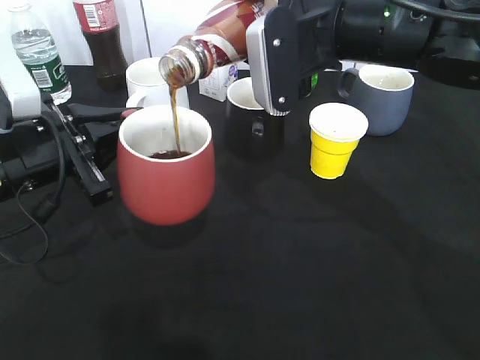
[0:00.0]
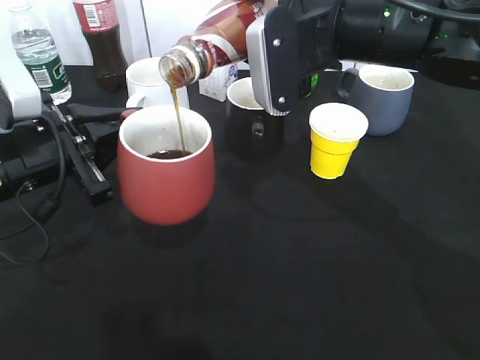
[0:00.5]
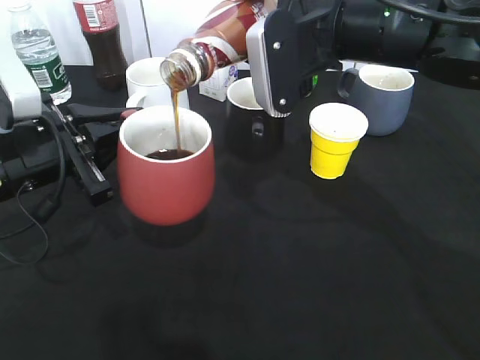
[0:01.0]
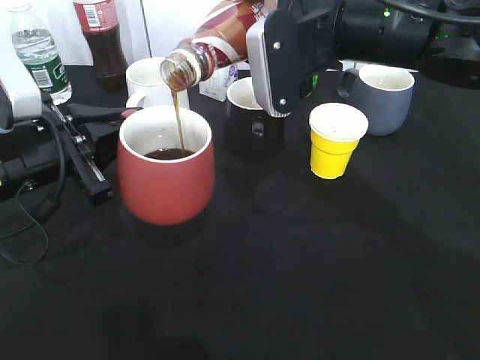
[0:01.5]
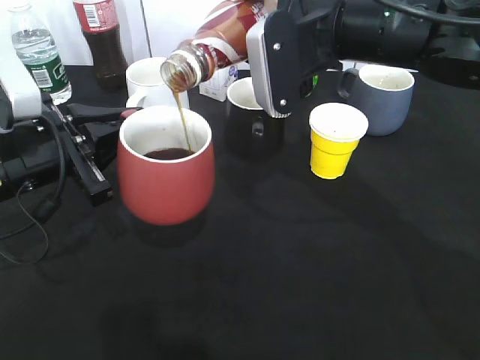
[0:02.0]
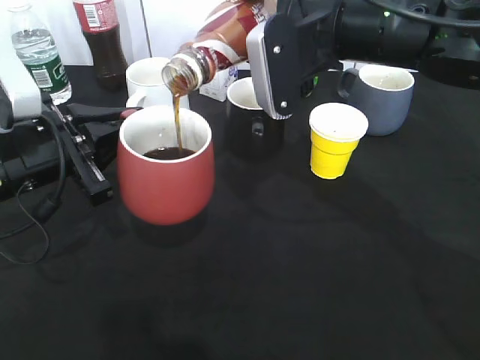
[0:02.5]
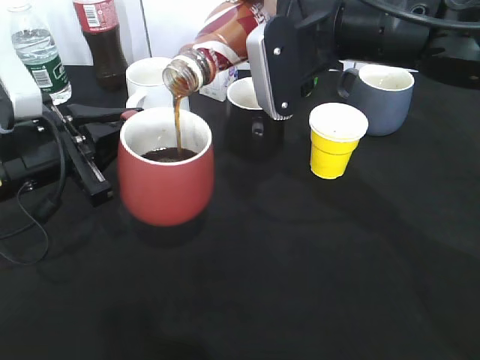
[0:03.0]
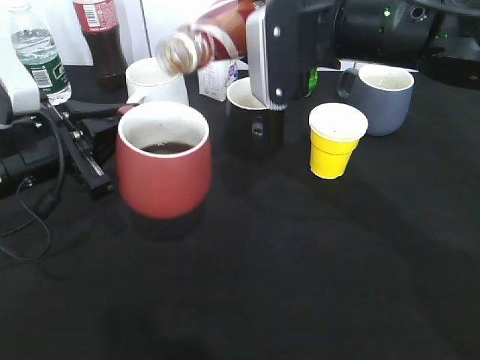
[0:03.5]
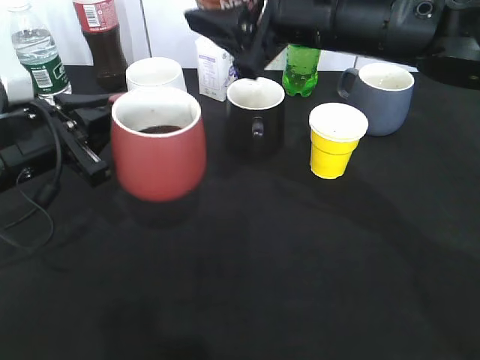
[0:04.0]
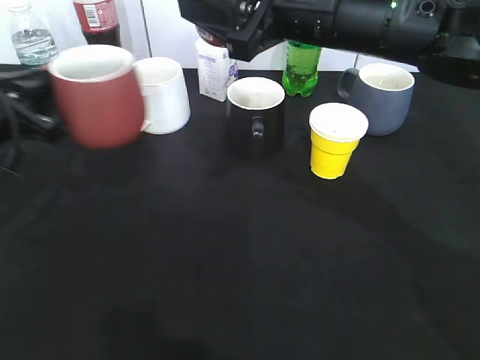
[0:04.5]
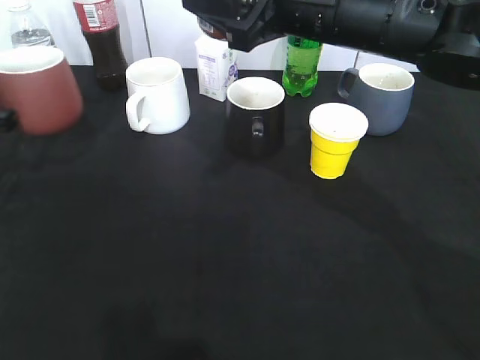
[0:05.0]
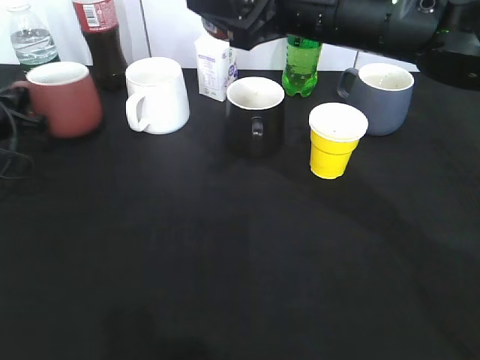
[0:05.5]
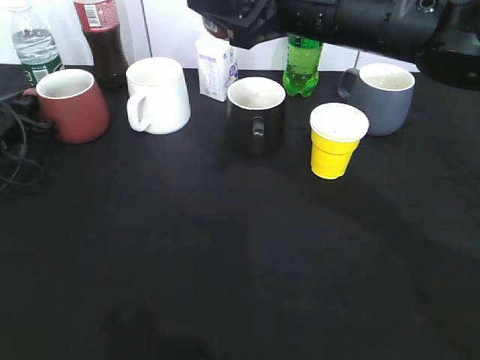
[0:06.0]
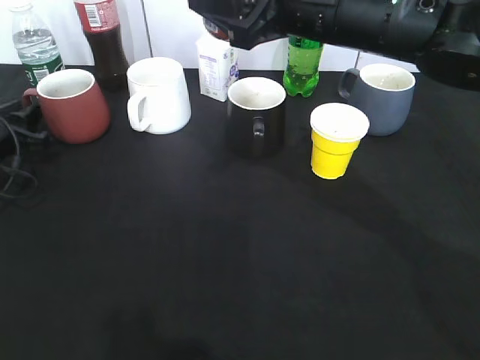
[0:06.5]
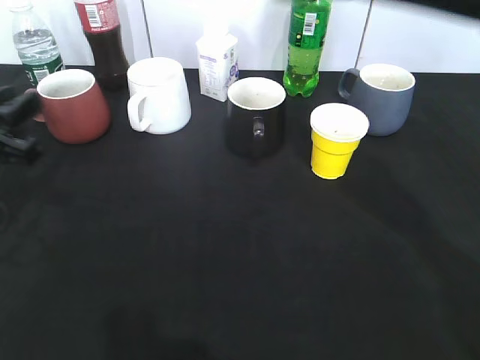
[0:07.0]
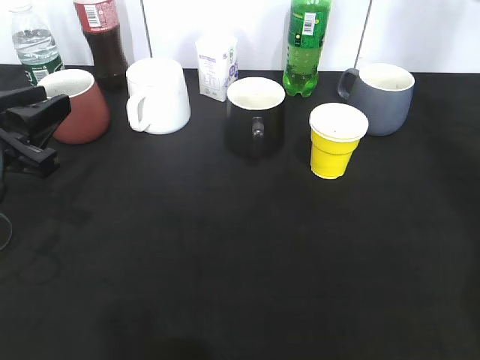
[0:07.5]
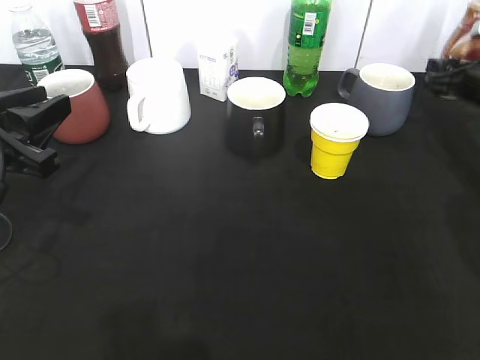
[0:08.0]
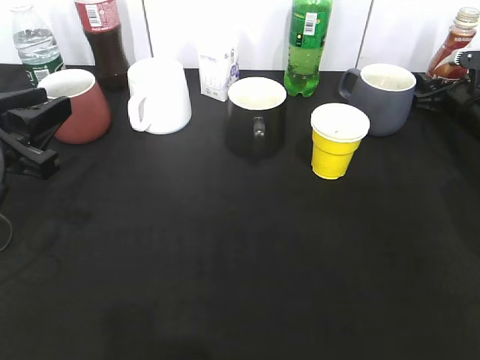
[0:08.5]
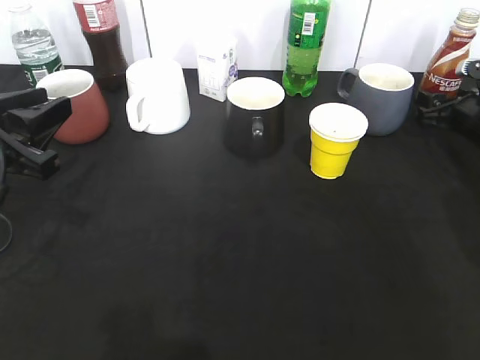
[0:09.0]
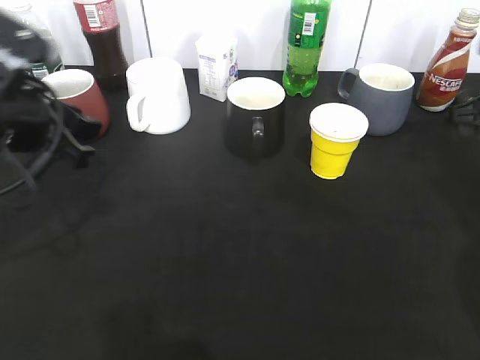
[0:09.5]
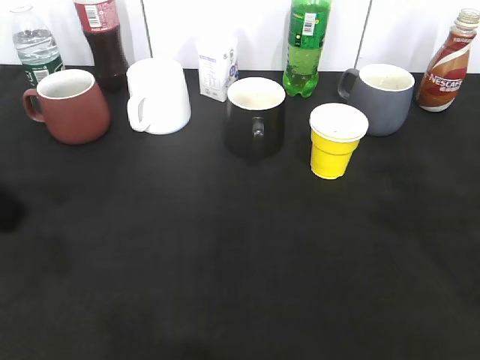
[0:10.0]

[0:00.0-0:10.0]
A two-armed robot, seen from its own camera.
Step, 0:04.0 to 0:06.0: Place the red cup on the table with left gripper.
Step, 0:06.5 to 0:08.5: Place the coffee bottle on the table with right gripper.
0:00.0 to 0:02.0: Both grippers stay about where they are.
0:04.0 to 0:06.0: The left gripper moves forward, to the left and downward, some 20 cm.
0:06.0 to 0:08.0: The right gripper moves to the right, downward and forward, about 35 cm. Meanwhile the left gripper travels backward, upward and to the right by approximately 20 cm.
0:08.0 to 0:10.0: The right gripper moves backward and upward, about 30 cm, and opens up. Meanwhile the left gripper shifts about 10 cm upward and backward.
